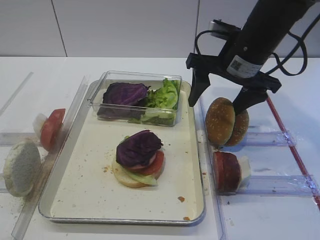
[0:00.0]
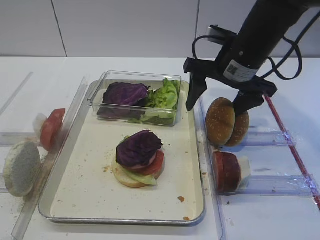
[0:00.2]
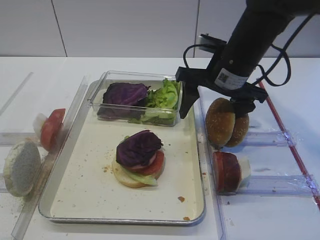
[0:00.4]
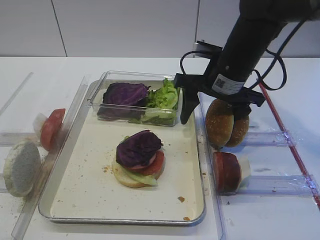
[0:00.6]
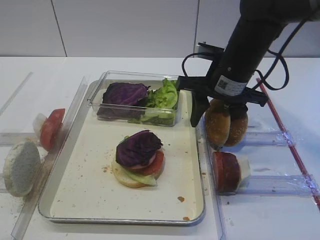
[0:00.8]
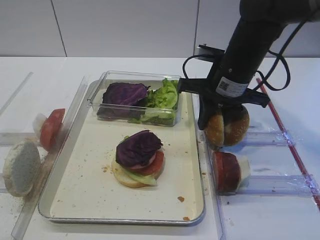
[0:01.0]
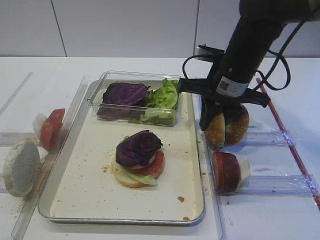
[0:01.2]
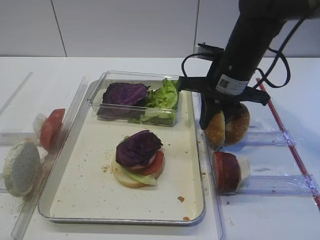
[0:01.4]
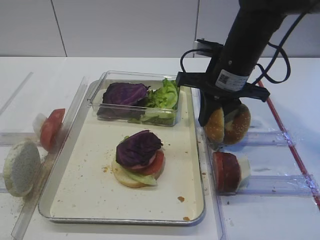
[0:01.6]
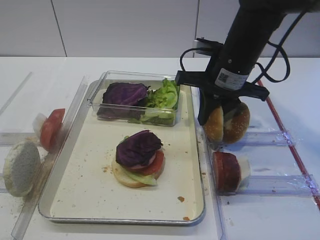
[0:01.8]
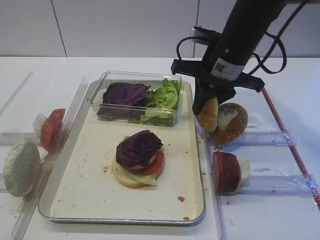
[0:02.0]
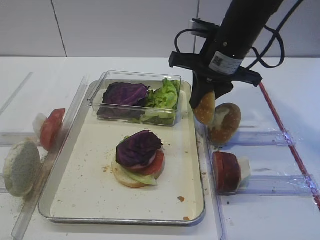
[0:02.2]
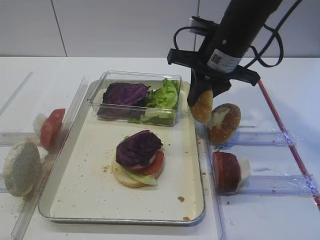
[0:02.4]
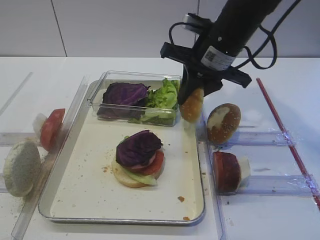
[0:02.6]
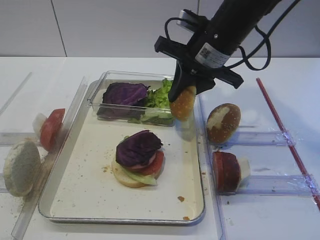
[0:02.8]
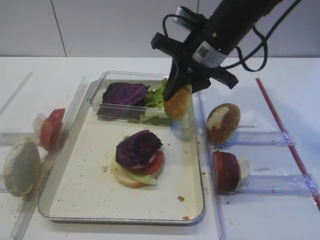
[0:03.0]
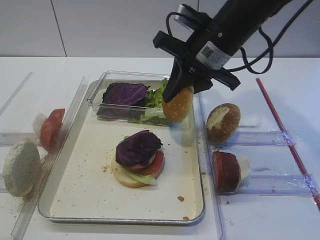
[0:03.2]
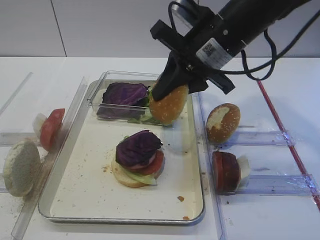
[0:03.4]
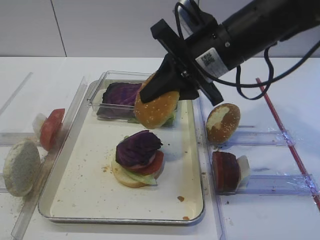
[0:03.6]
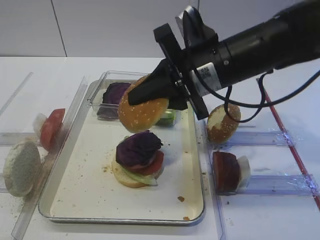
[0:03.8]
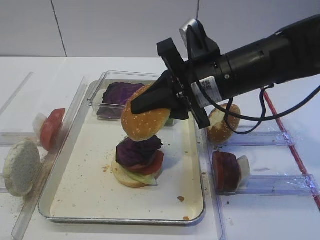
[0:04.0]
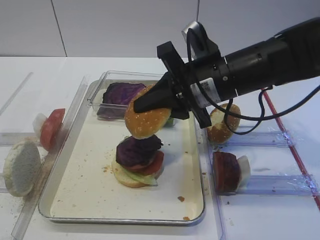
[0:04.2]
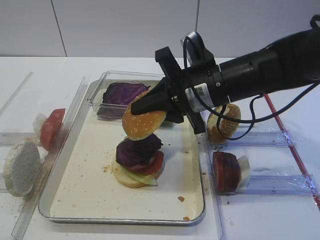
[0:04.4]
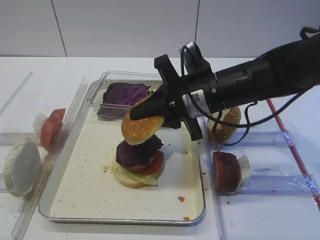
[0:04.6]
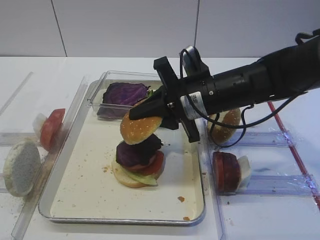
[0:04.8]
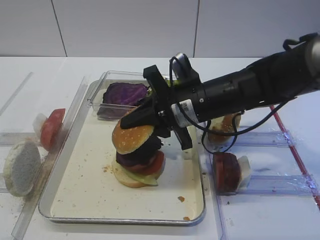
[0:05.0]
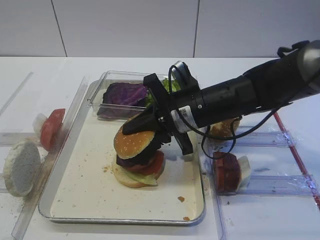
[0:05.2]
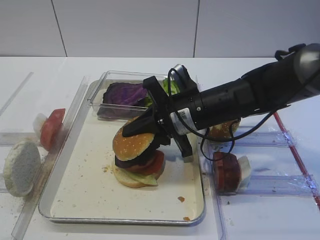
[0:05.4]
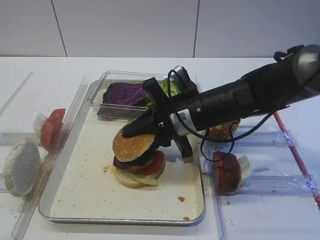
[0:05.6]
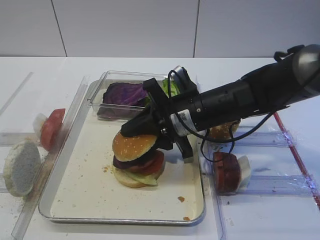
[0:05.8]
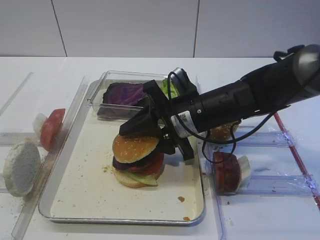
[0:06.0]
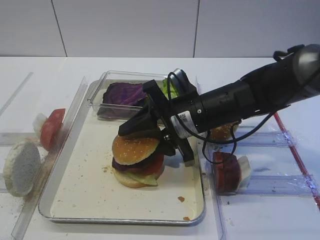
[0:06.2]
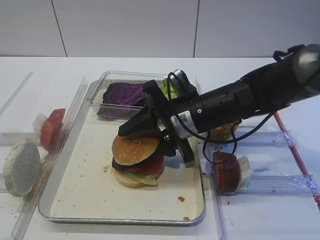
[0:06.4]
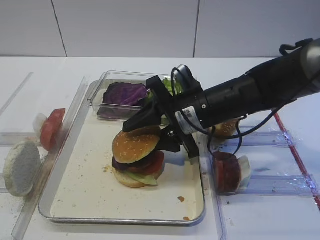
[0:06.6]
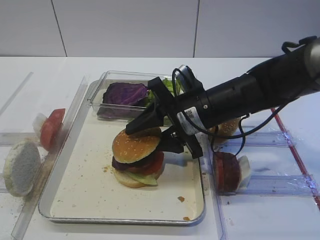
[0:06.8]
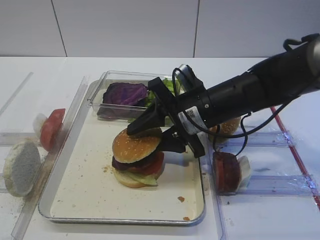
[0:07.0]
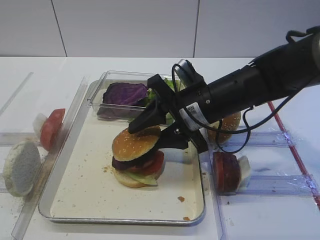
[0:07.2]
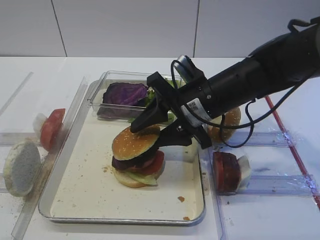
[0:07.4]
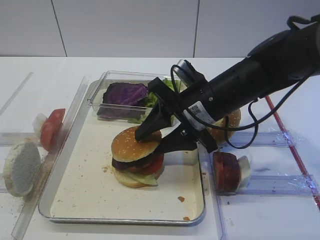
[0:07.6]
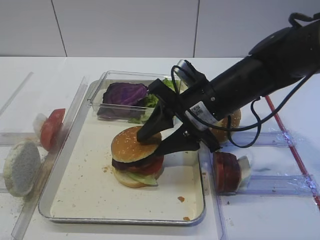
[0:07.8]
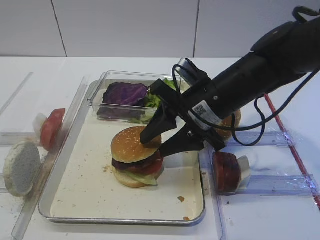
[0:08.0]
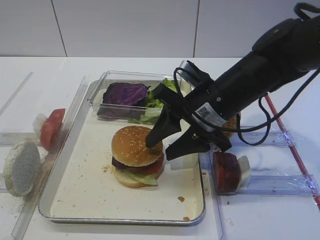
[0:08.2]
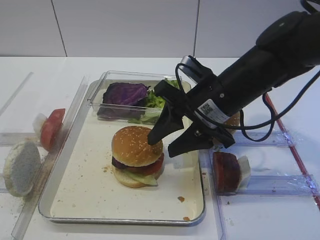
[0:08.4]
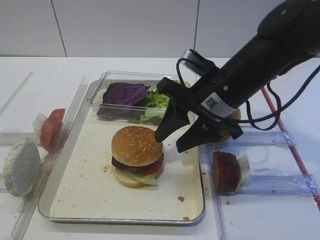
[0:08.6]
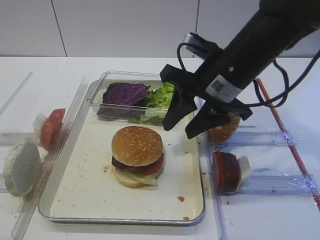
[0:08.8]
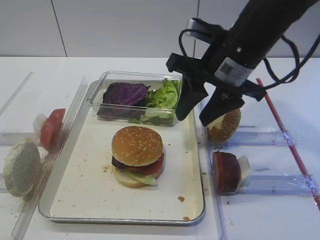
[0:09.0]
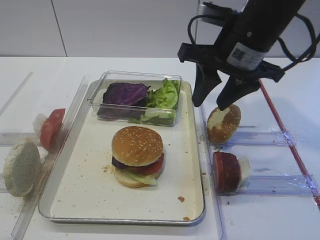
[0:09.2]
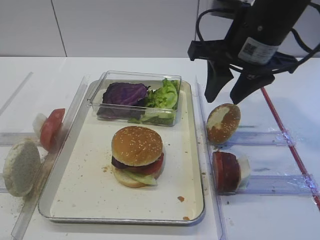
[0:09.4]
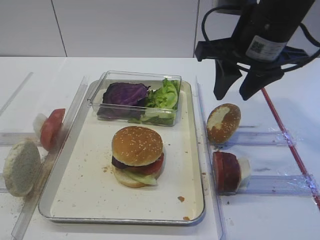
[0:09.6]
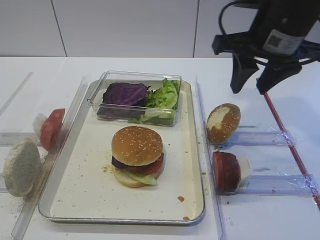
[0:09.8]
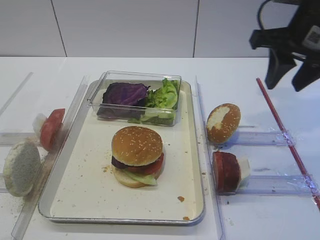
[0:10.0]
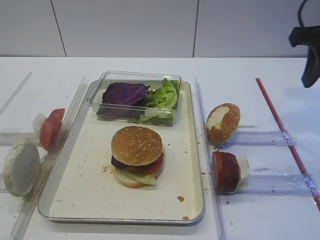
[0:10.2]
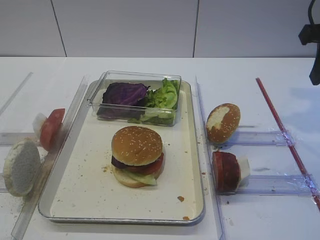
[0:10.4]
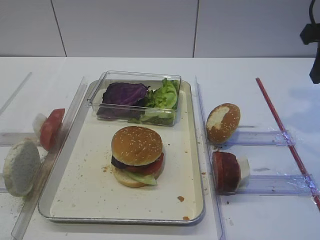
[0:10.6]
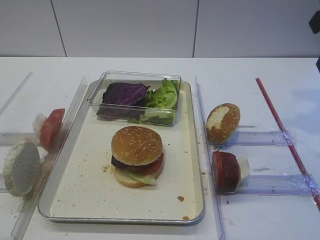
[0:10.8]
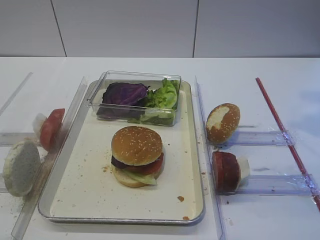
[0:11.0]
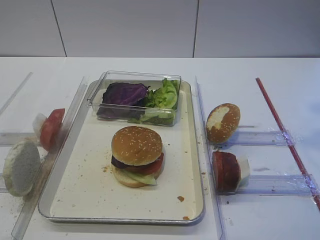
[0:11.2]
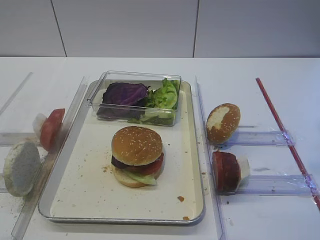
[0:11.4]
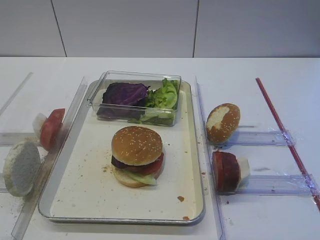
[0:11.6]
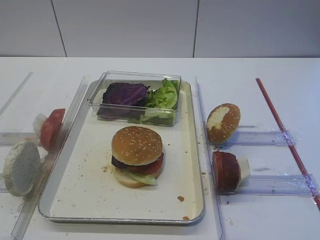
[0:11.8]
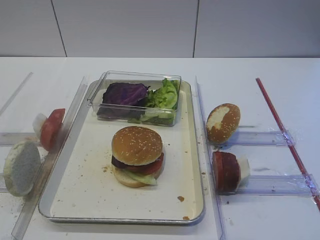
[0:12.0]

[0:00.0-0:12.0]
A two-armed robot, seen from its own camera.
Step, 0:00.0 to 0:02.2: Pick up the hamburger lid with the right gripper.
Step, 0:02.6 to 0:08.6: Place the hamburger lid on the purple cabbage with the right gripper.
0:00.0 to 0:01.6: The right gripper closes.
0:01.6 to 0:03.0: The grippers make only small movements.
0:03.0 to 0:04.4: The right gripper moves backward, about 5 cm.
0:04.4 to 0:06.0: The right gripper travels downward by some 5 cm, and opens.
0:06.0 to 0:07.6: The grippers make only small movements.
0:07.6 to 0:09.0: The right gripper goes approximately 10 cm upward.
0:09.0 to 0:10.4: The right gripper shifts some 15 cm to the right.
0:10.4 to 0:12.0: The right gripper shifts about 25 cm backward.

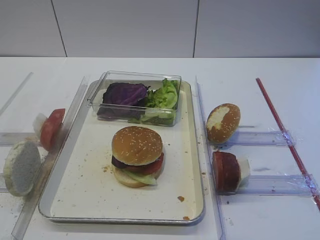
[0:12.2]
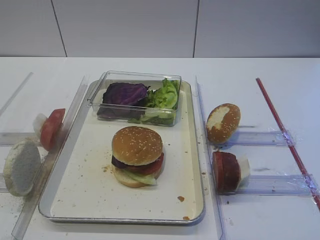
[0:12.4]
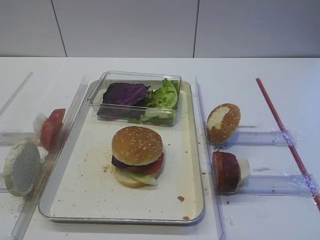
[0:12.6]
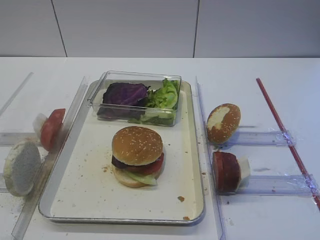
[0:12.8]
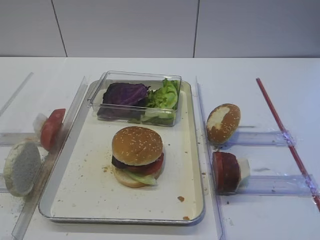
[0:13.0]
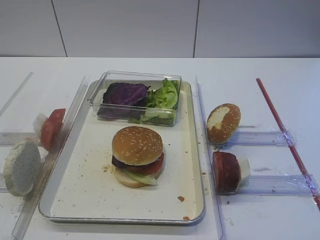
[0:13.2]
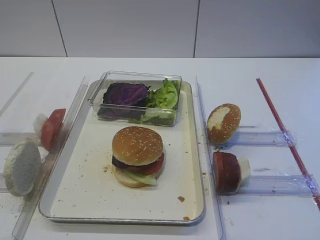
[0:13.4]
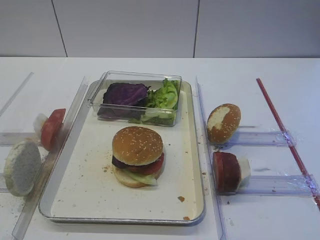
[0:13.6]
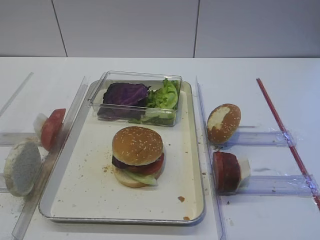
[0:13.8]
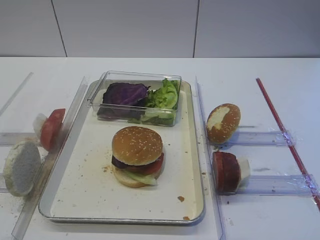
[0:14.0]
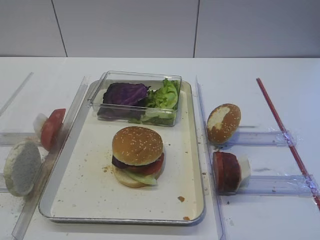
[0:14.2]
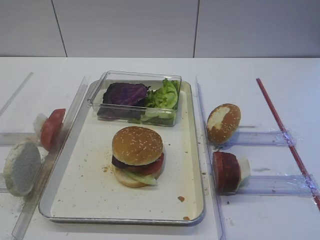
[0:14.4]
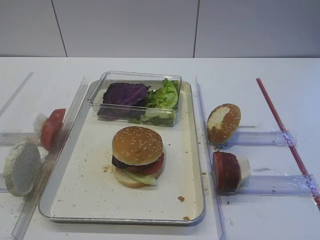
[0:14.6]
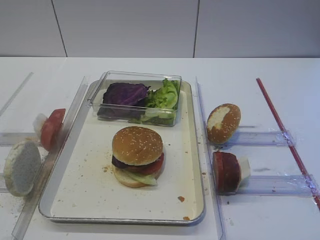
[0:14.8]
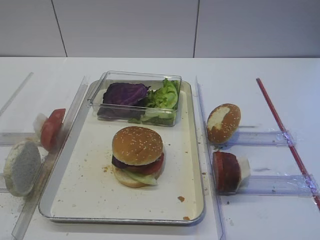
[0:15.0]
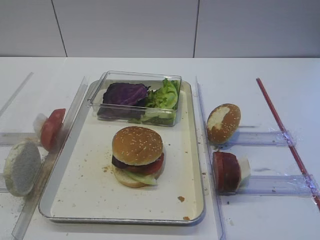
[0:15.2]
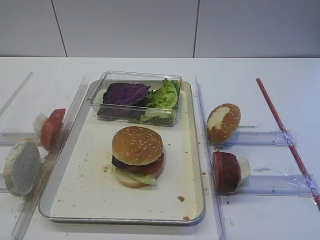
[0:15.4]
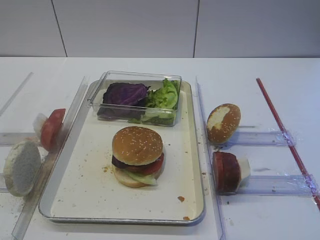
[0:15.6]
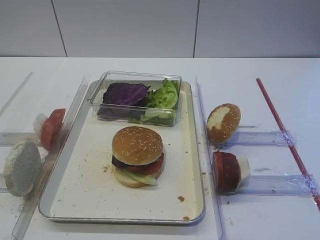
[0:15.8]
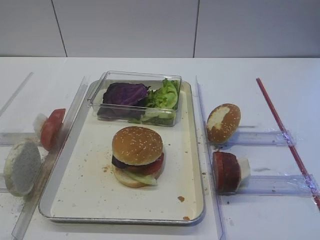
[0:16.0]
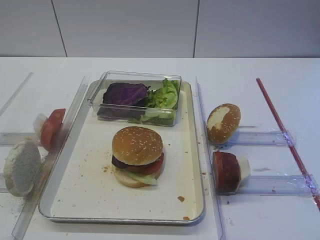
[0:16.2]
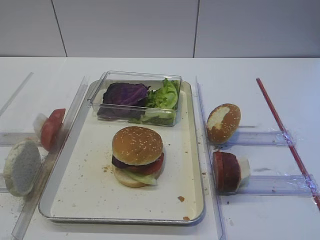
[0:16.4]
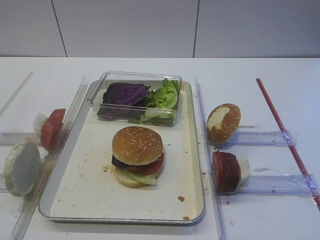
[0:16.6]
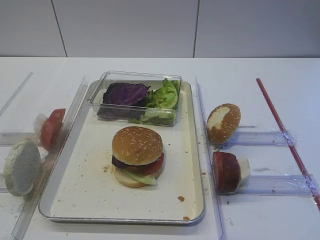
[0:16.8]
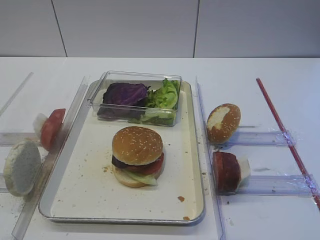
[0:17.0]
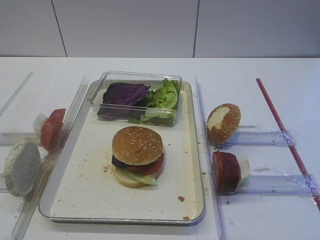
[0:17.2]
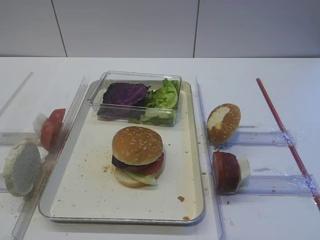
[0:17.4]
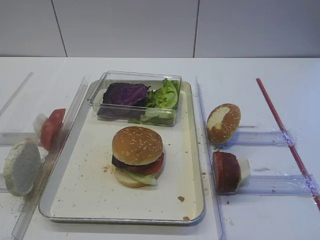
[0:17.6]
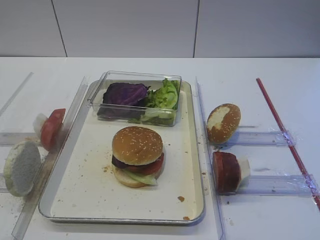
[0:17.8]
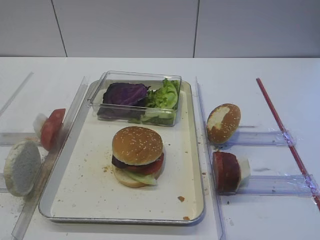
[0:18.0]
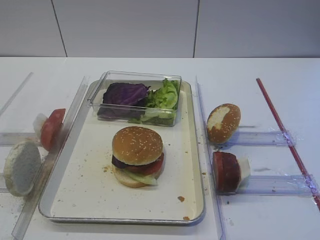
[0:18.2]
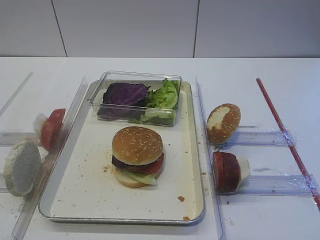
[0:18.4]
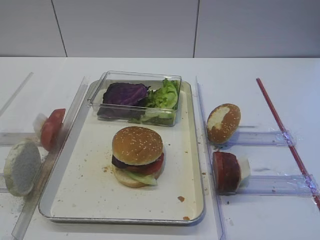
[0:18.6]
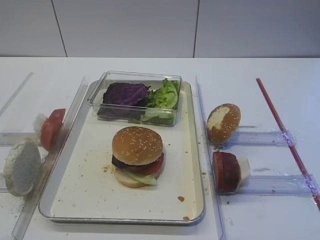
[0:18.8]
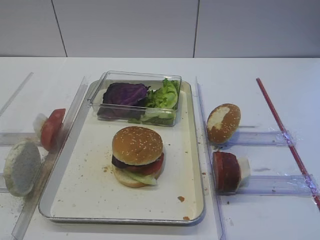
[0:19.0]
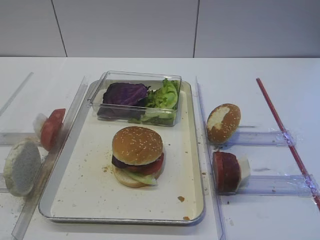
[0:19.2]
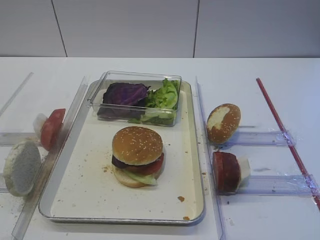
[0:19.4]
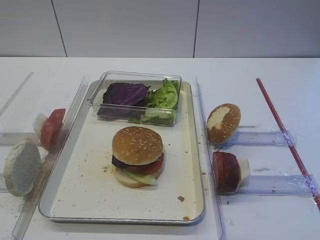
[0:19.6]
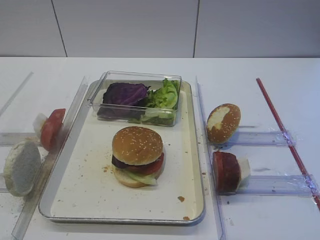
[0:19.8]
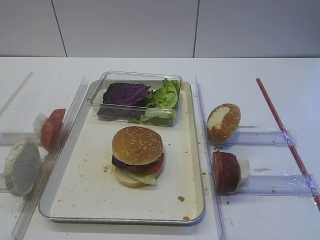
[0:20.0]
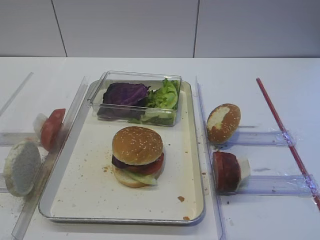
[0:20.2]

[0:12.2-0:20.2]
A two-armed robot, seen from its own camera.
0:15.4 to 0:17.0: The two grippers keep their place.
0:18.6 to 0:20.2: The two grippers keep their place.
